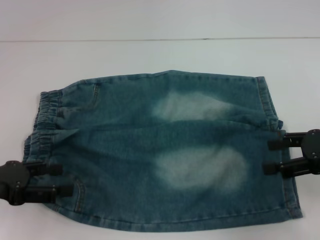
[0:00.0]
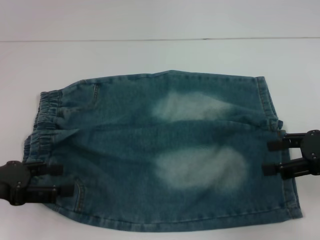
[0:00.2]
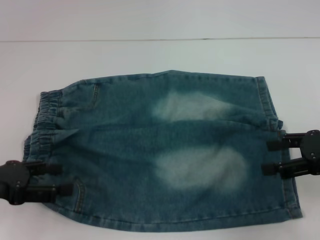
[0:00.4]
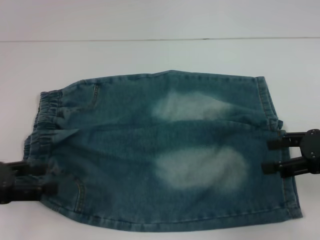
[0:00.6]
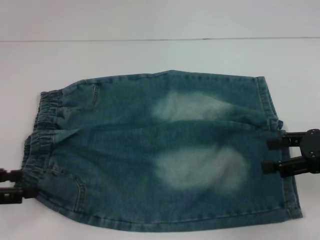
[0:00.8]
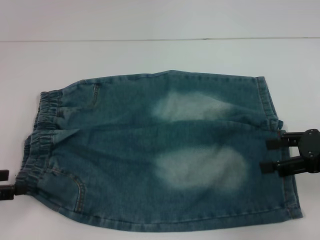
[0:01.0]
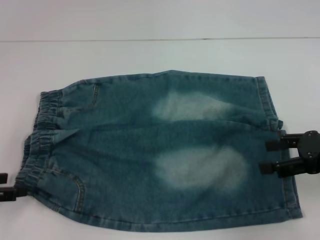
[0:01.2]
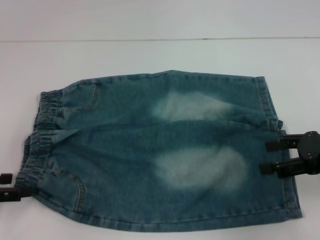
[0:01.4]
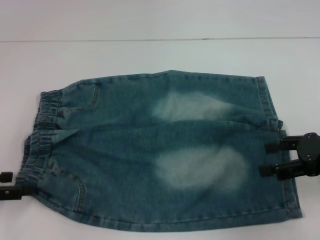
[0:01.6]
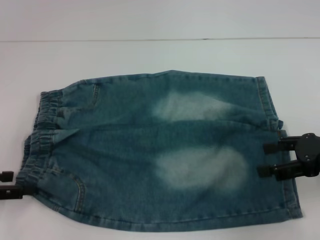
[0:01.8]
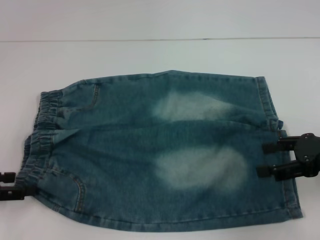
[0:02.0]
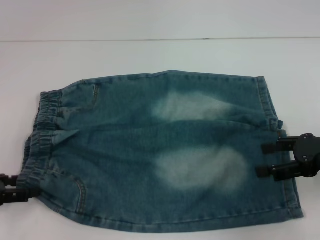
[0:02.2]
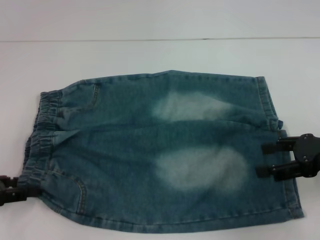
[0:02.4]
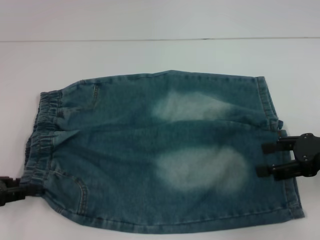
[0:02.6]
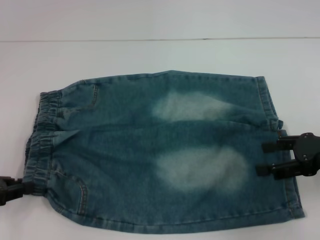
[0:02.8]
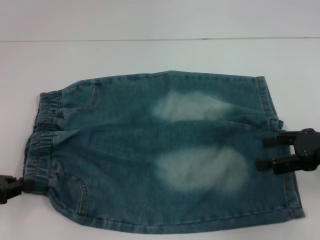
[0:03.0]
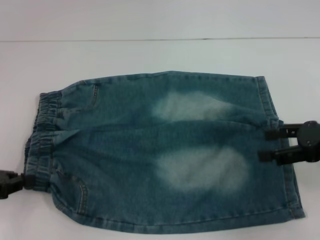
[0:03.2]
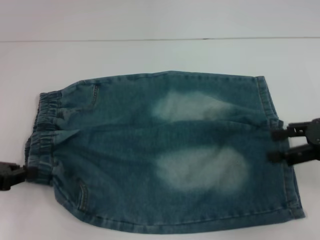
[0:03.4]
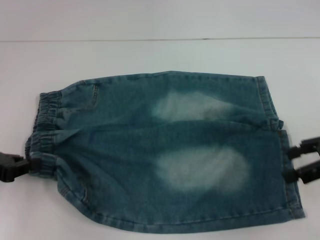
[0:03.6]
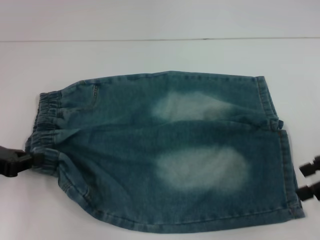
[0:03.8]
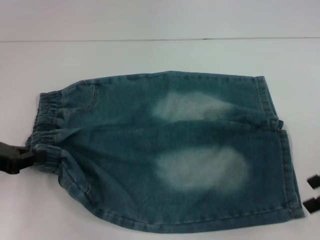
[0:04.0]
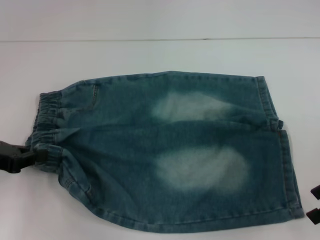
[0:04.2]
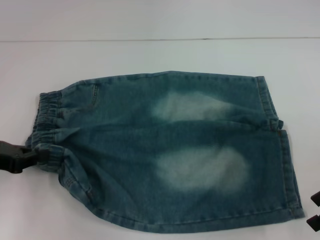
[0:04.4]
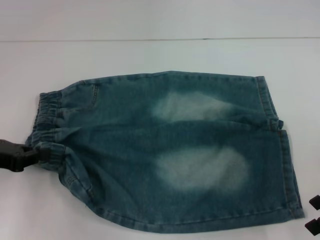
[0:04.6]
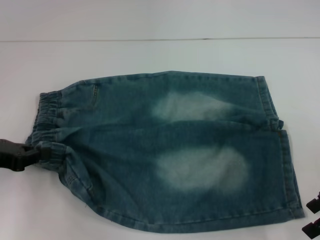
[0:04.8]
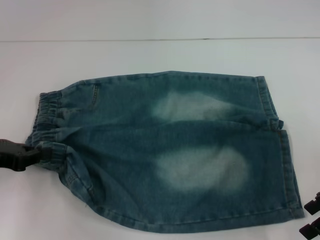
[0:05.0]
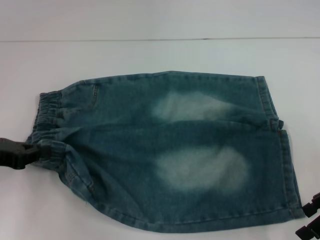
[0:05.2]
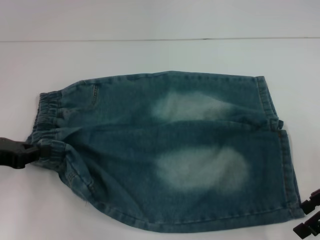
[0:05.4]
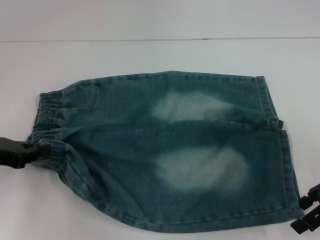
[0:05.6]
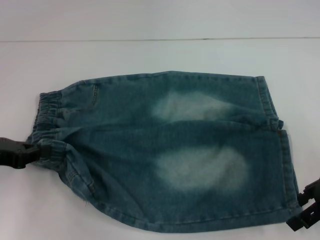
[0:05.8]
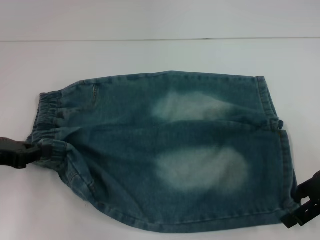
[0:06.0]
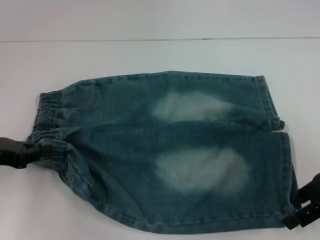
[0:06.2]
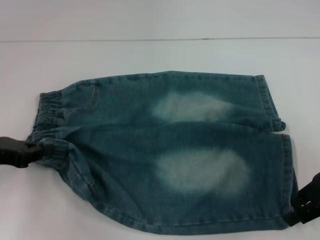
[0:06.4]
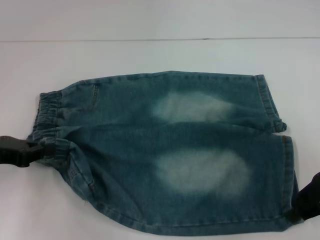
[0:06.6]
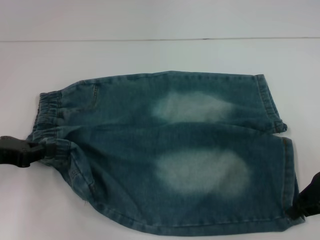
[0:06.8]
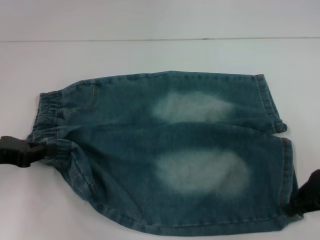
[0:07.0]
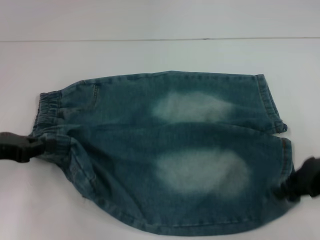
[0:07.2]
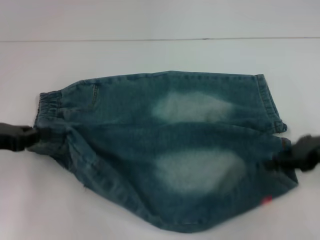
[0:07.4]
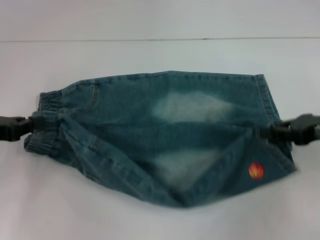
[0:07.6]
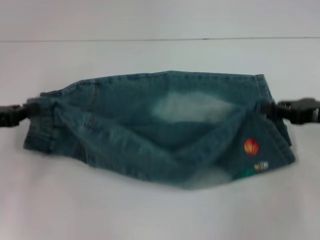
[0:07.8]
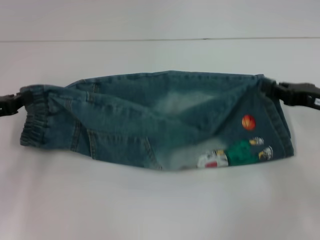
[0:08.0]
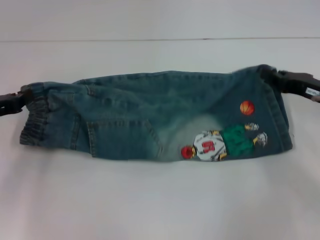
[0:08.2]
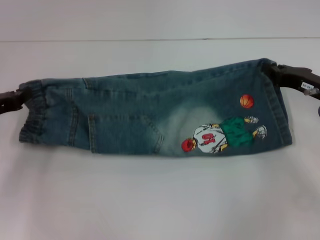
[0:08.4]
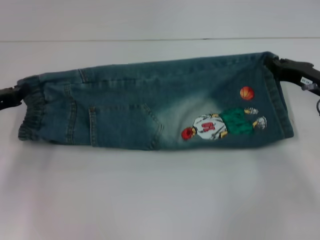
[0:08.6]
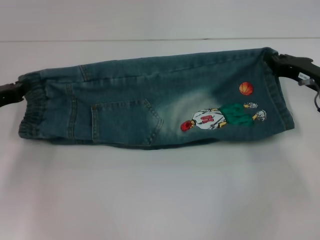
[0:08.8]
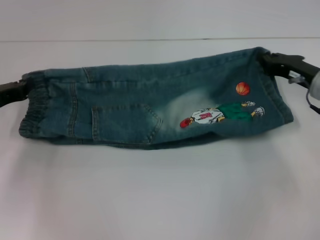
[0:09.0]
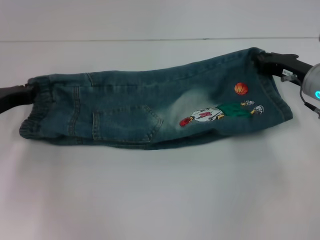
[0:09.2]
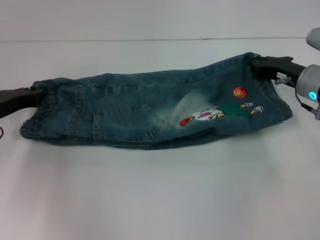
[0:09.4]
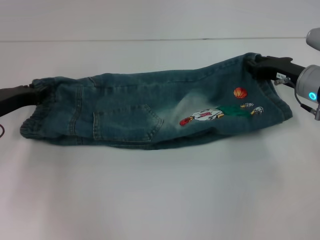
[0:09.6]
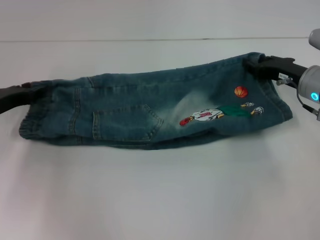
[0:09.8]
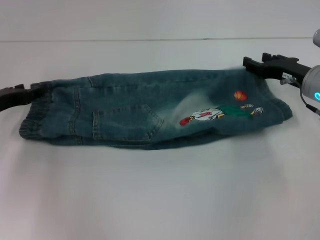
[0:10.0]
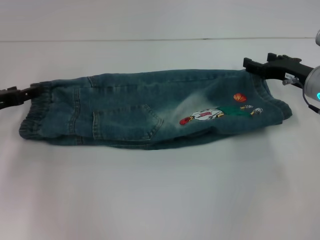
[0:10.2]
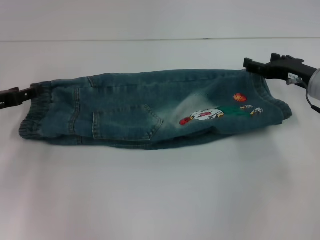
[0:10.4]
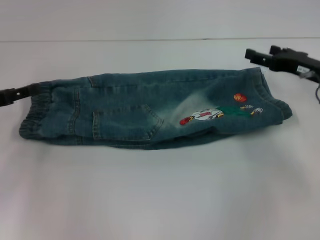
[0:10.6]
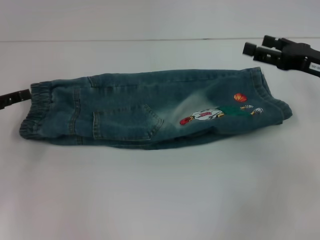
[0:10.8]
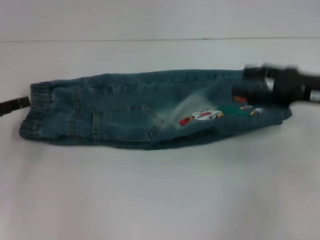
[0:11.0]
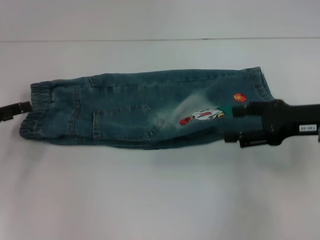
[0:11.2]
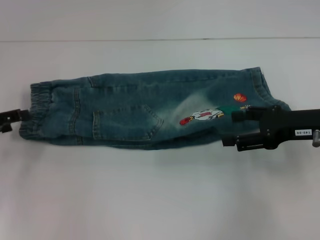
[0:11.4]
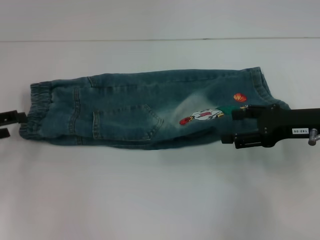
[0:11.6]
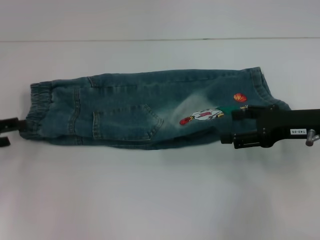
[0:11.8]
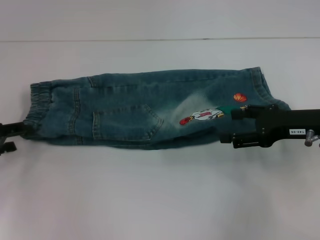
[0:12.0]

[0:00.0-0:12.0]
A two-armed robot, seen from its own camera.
Step, 0:00.0 to 0:03.6: Hold the waistband with your left hand.
Step, 0:04.0 to 0:06.6: Grab the lower right pant leg with your right hand.
Step, 0:06.8 to 0:10.2: Fold upward with your right hand.
0:00.0 to 0:01.6: The left gripper shifts by roughly 5 cm.
0:01.6 to 0:03.0: The left gripper closes.
0:04.4 to 0:06.0: The grippers move only a little.
0:06.0 to 0:07.6: The right gripper closes.
0:07.6 to 0:09.0: The right gripper travels forward by about 5 cm. The left gripper changes place by about 5 cm.
0:09.0 to 0:10.4: The left gripper opens, while the right gripper opens its fingers.
0:10.4 to 0:12.0: The right gripper is displaced backward by some 5 cm.

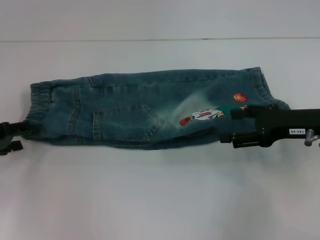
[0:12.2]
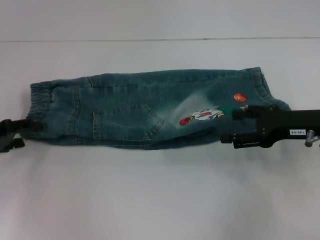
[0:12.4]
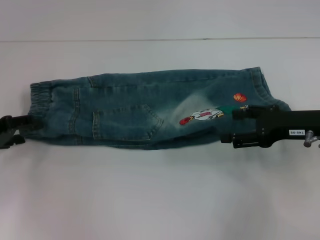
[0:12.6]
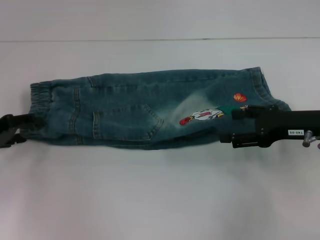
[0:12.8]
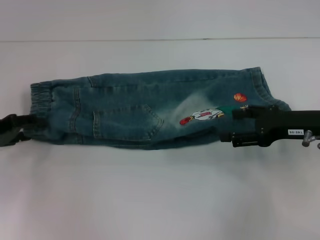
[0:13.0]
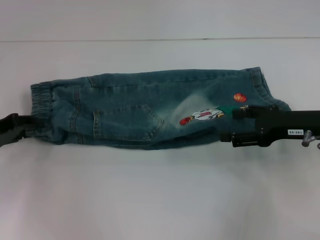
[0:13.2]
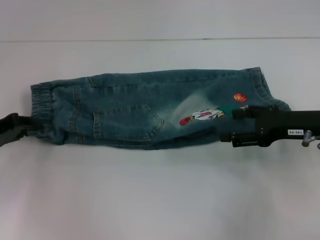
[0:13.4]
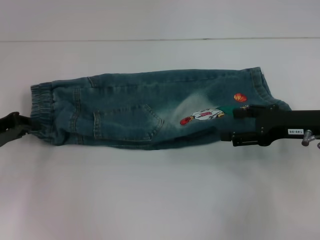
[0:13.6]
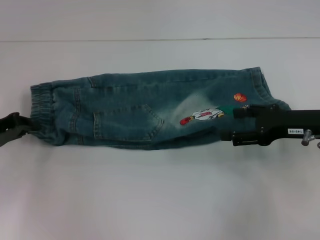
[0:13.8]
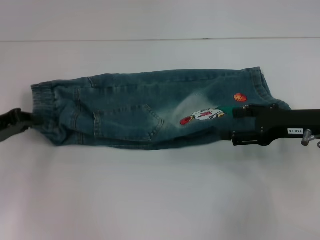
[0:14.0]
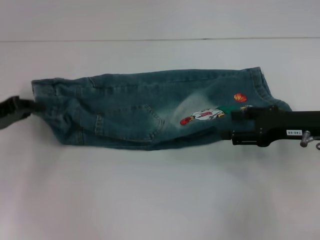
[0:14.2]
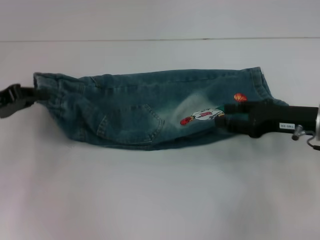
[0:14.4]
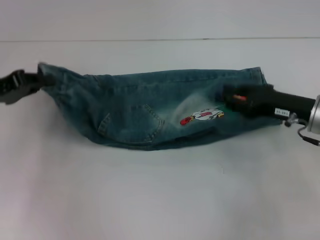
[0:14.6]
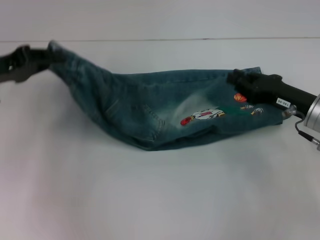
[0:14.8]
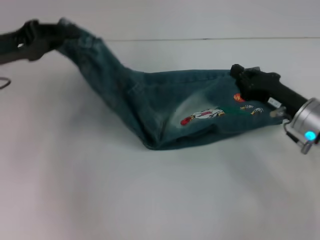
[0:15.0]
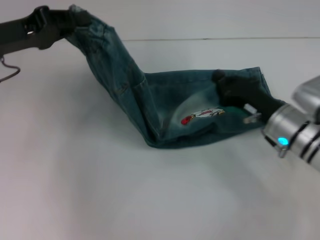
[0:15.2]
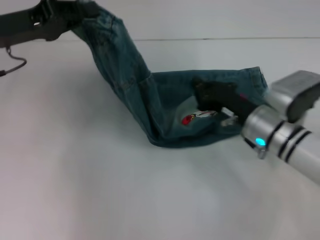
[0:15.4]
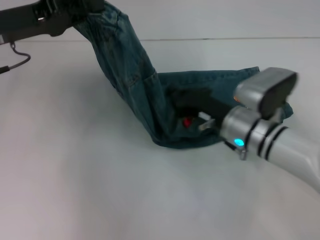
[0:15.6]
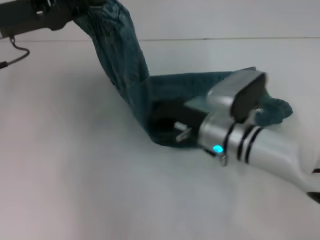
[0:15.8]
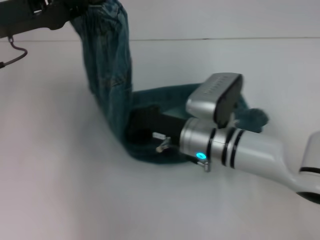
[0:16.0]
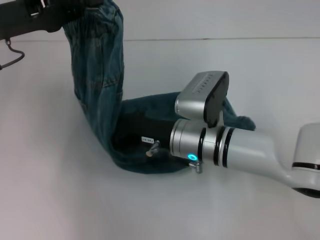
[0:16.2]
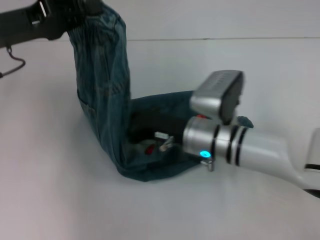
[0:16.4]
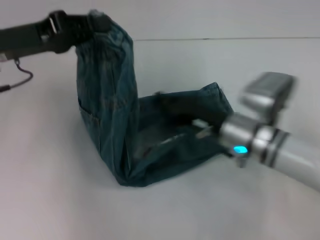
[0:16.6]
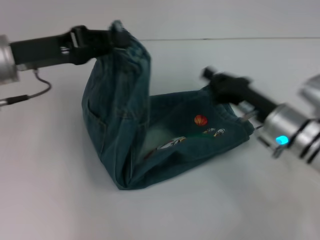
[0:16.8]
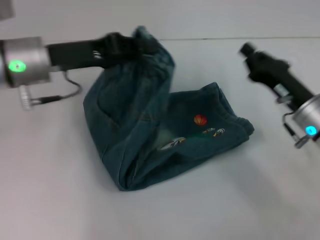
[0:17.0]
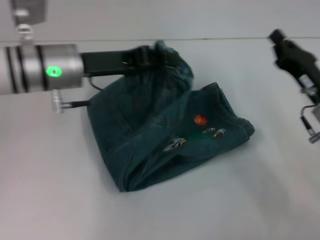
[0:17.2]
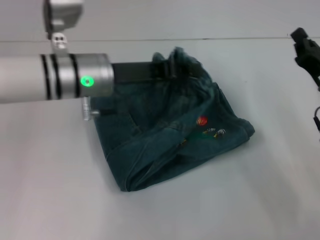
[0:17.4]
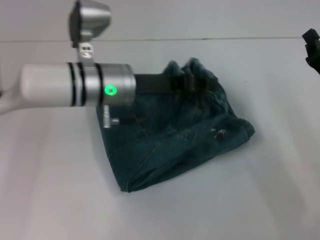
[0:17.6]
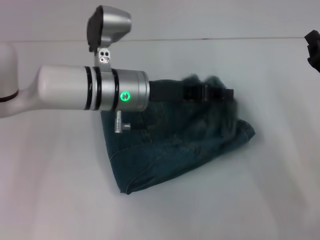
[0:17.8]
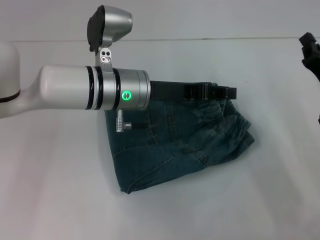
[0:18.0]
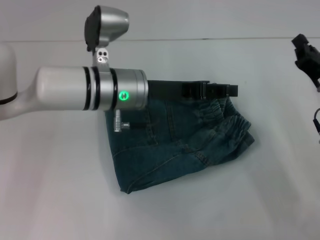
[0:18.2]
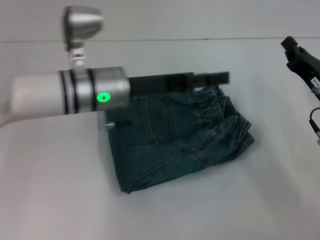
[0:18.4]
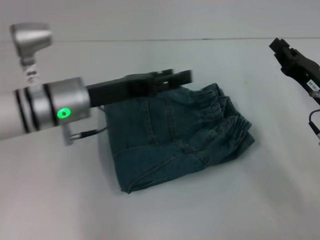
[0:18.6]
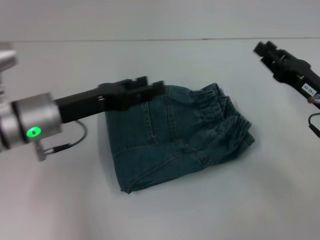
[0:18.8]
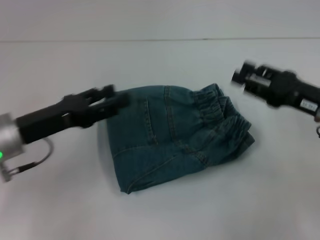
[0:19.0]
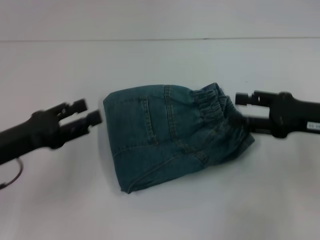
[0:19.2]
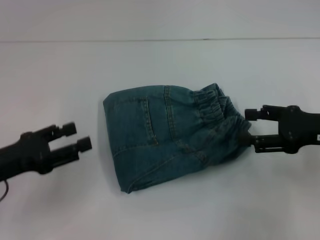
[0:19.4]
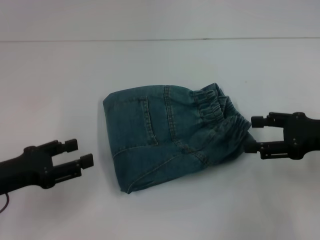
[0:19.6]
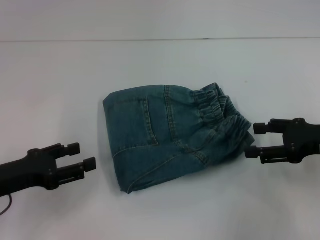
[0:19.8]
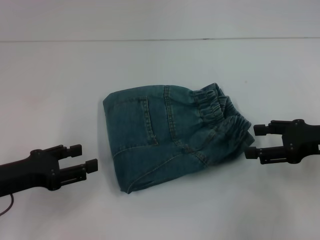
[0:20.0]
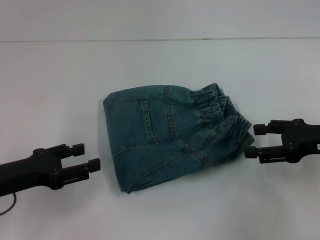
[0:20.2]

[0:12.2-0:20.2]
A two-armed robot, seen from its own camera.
Step, 0:13.4 to 0:16.4: Press the middle of the pants with your right hand.
Step, 0:16.6 to 0:18.0: Fold to the right with your left hand.
0:12.2 to 0:13.8: The left gripper closes its fingers.
0:13.8 to 0:15.4: The left gripper travels upward, to the right and forward by some 15 cm, while the right gripper moves to the left and downward, about 10 cm, and closes.
0:15.4 to 0:17.0: The right gripper reaches about 10 cm to the left, then returns, while the left gripper moves to the right, some 5 cm.
0:17.0 to 0:18.6: The left gripper moves downward, about 5 cm, and opens its fingers.
0:18.6 to 0:20.2: The left gripper shifts some 15 cm to the left and backward; the right gripper shifts by about 5 cm, and opens up.
